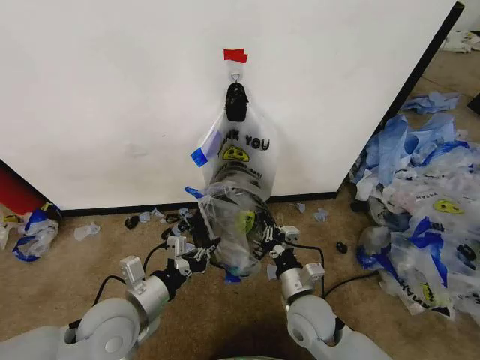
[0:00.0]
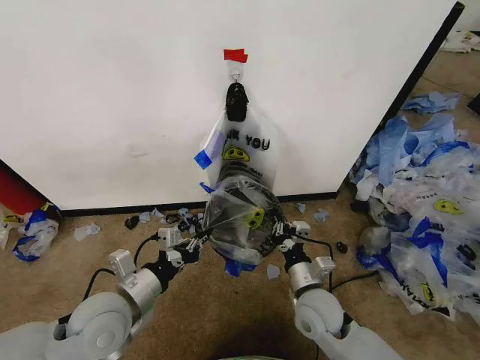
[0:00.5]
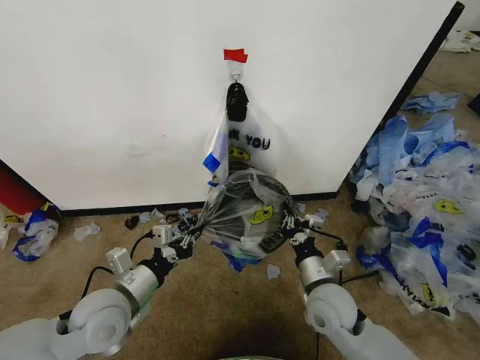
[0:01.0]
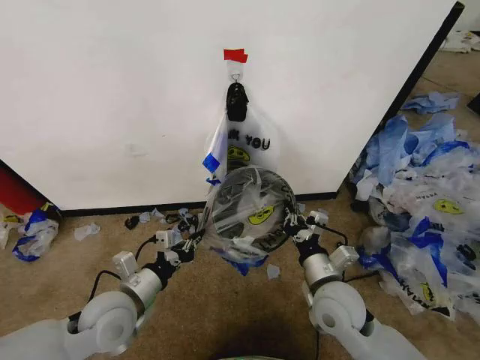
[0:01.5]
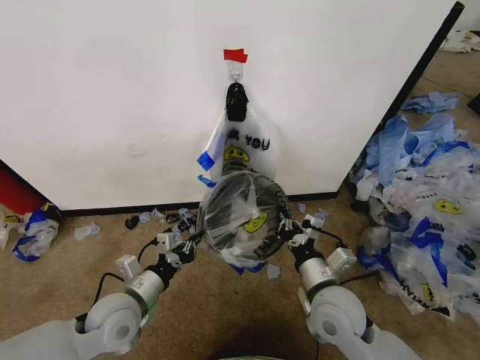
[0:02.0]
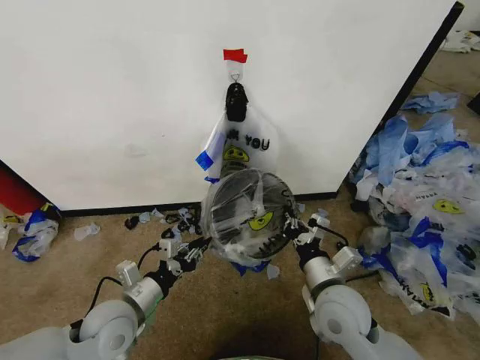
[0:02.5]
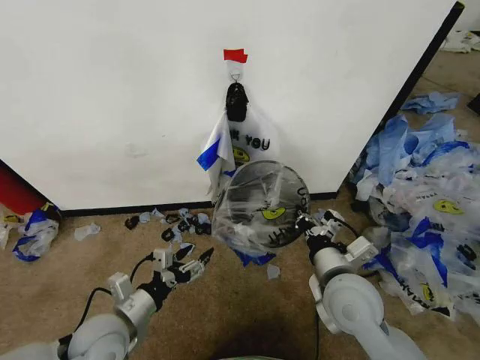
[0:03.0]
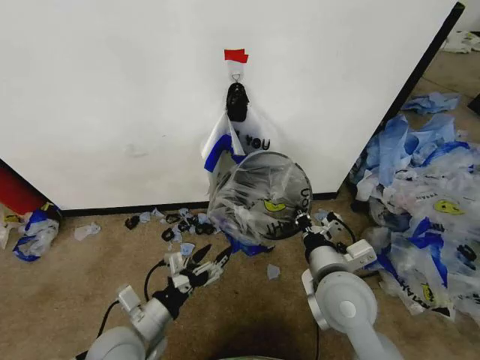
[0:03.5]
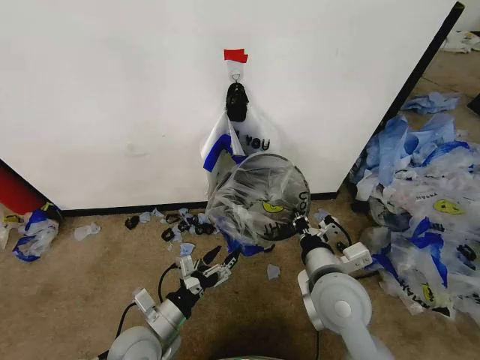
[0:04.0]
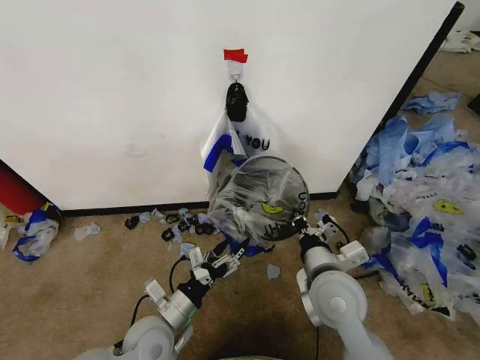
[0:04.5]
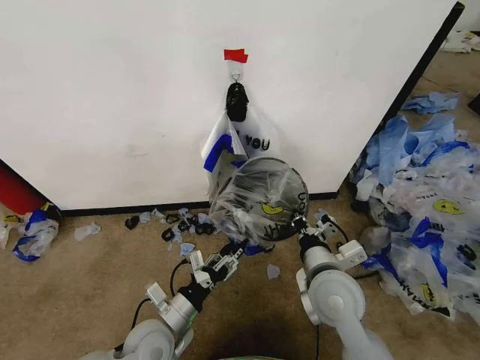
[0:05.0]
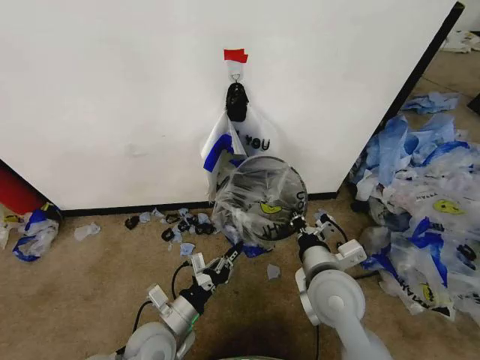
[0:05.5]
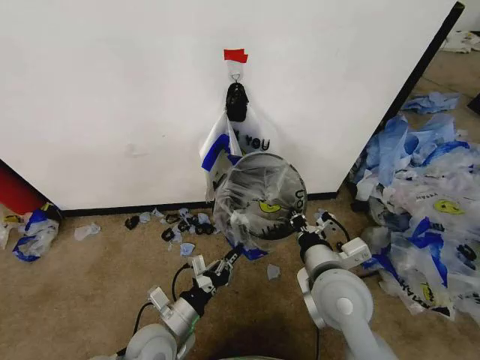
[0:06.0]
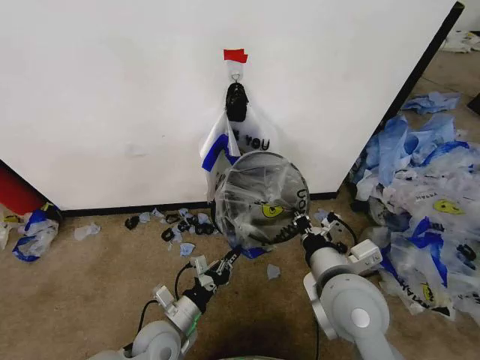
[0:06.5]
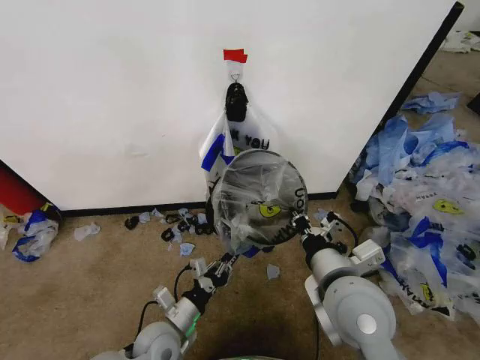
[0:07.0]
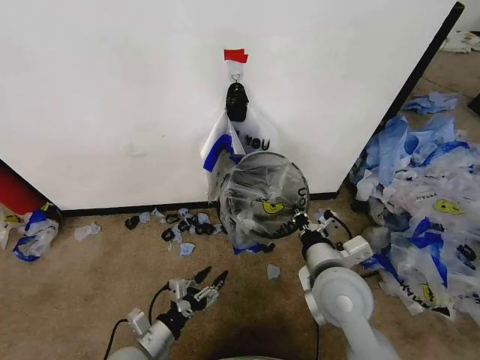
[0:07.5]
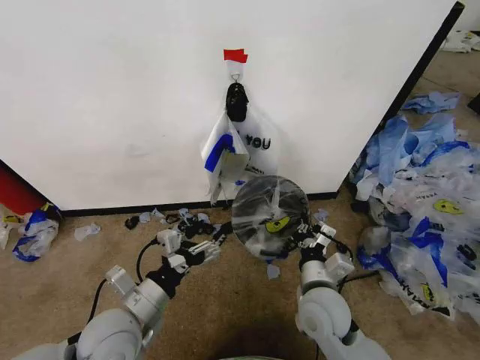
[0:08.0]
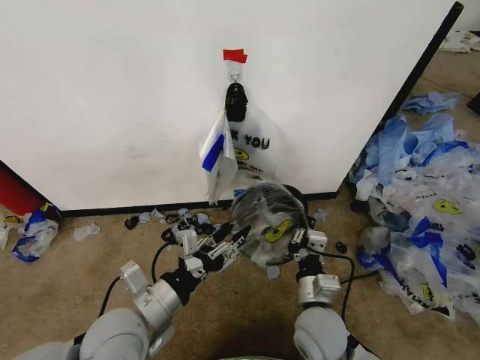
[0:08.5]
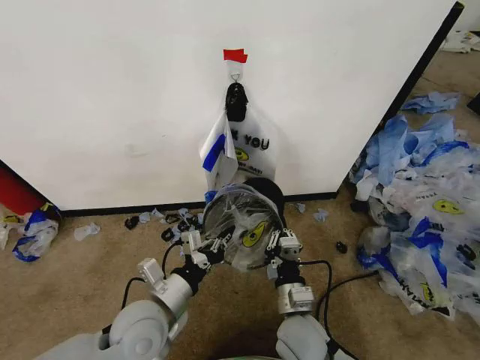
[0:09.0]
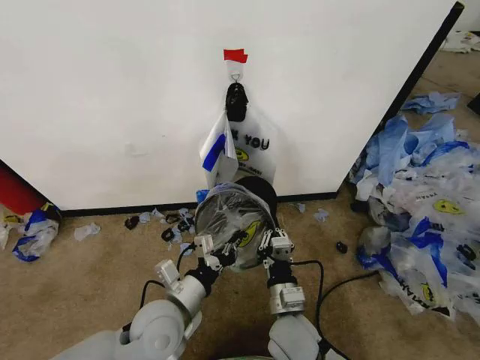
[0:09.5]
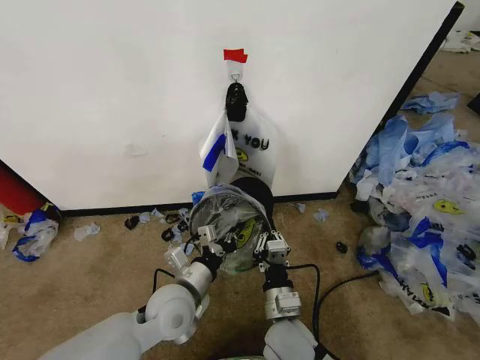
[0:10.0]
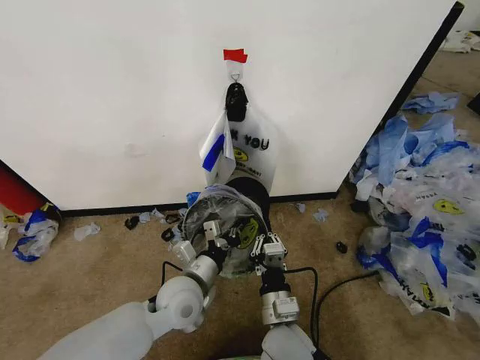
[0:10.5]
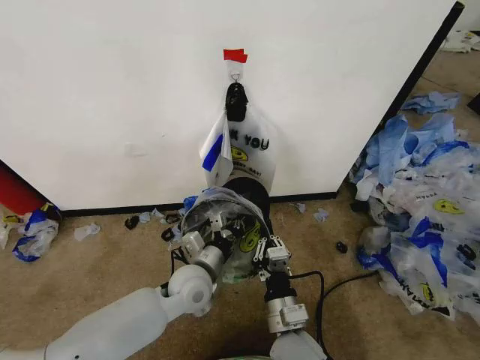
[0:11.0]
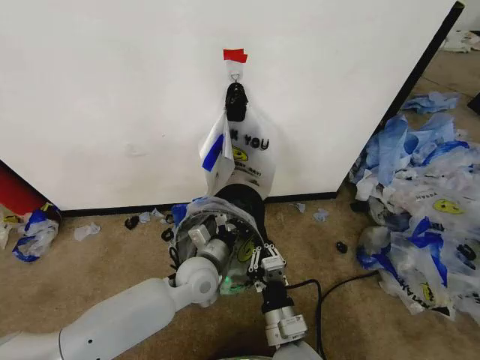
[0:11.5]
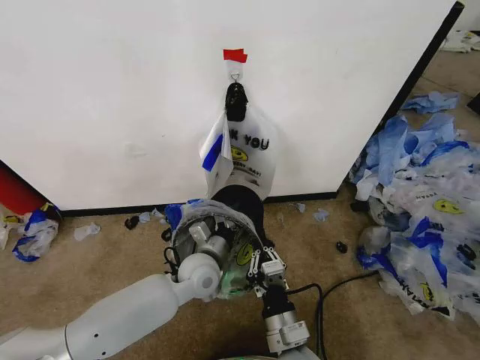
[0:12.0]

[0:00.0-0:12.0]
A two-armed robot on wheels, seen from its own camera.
Task of the whole recording: Pick up the garbage bag from the wall and place it over the trash bin.
0:00.0 to 0:02.0: The left gripper ends up about 5 cm from where it was. Meanwhile the right gripper shifts about 5 cm upward.
0:02.0 to 0:04.0: The right gripper goes approximately 5 cm upward; the left gripper changes place by approximately 10 cm, and opens.
0:04.0 to 0:06.0: The left gripper closes its fingers.
0:06.0 to 0:08.0: The left gripper travels upward by about 10 cm, and opens up; the right gripper heads downward, covering roughly 10 cm.
0:08.0 to 0:10.0: The right gripper shifts approximately 5 cm to the left; the left gripper is displaced to the right and forward by roughly 10 cm, and closes its fingers.
0:10.0 to 0:12.0: The right gripper shifts approximately 5 cm backward. The left gripper is displaced forward by some 10 cm.

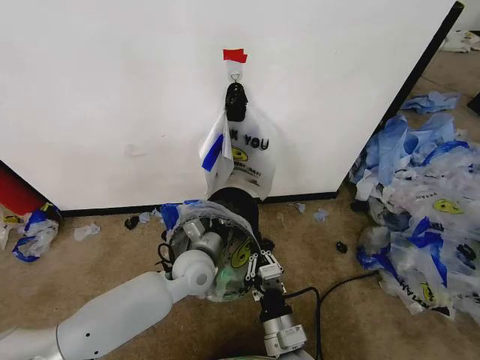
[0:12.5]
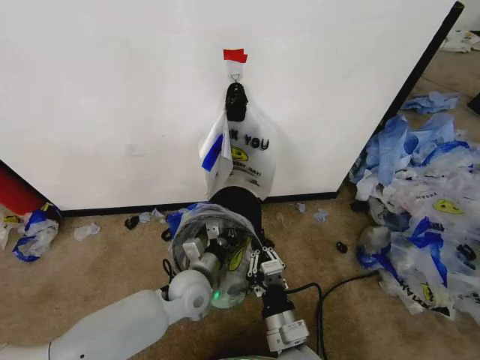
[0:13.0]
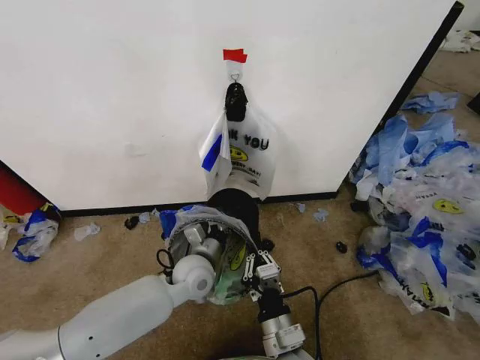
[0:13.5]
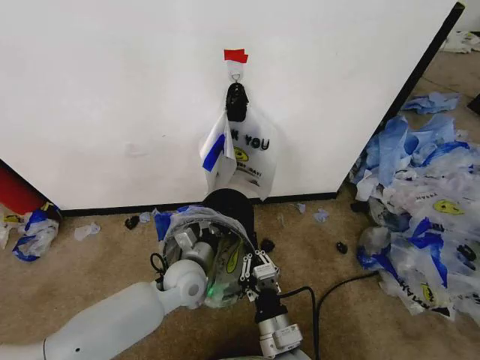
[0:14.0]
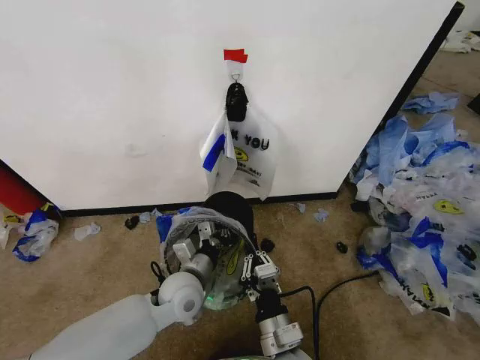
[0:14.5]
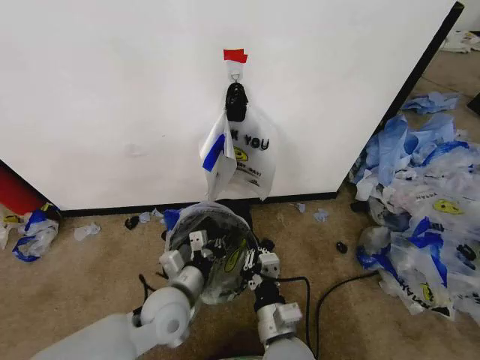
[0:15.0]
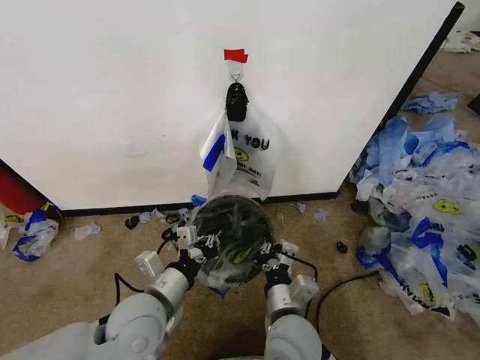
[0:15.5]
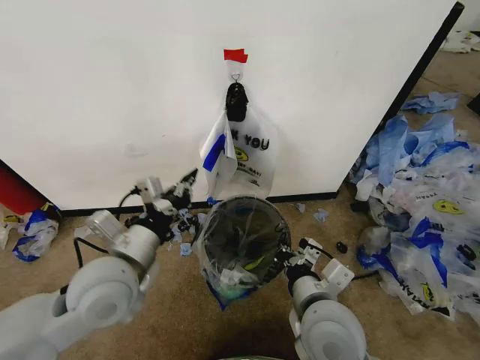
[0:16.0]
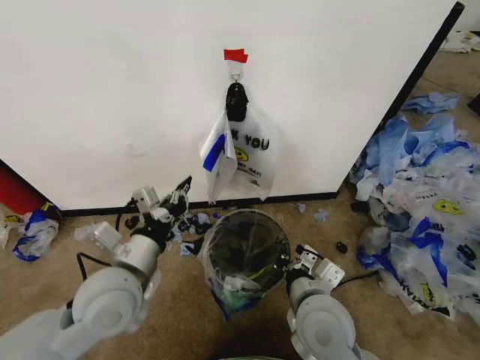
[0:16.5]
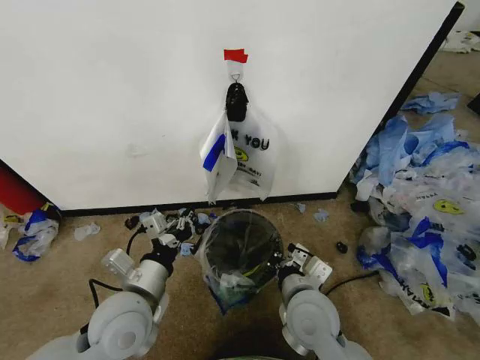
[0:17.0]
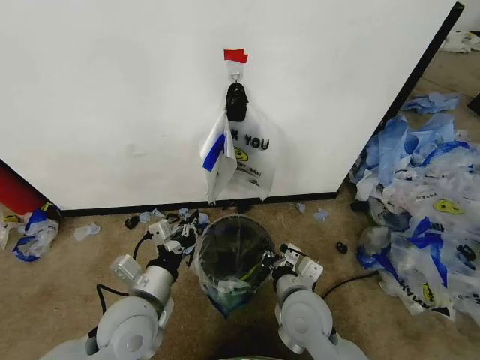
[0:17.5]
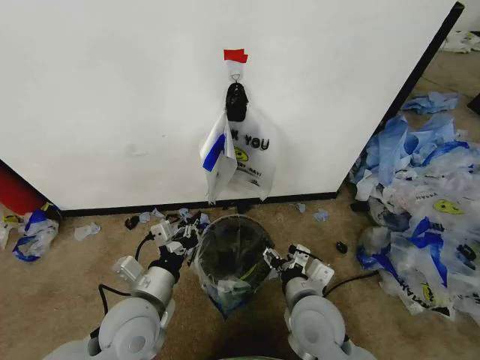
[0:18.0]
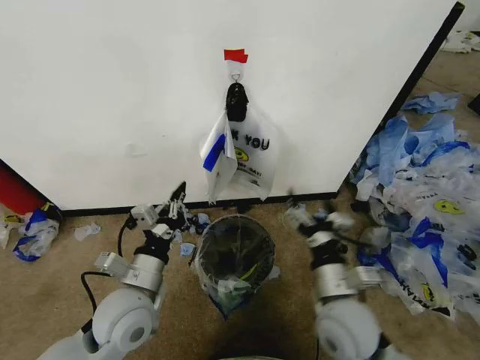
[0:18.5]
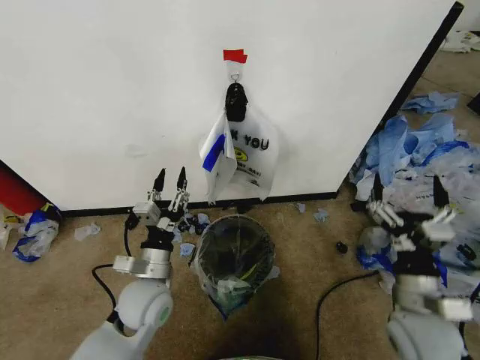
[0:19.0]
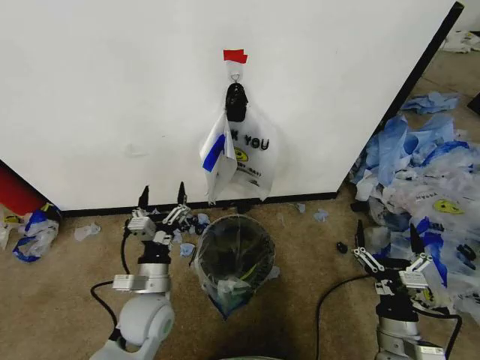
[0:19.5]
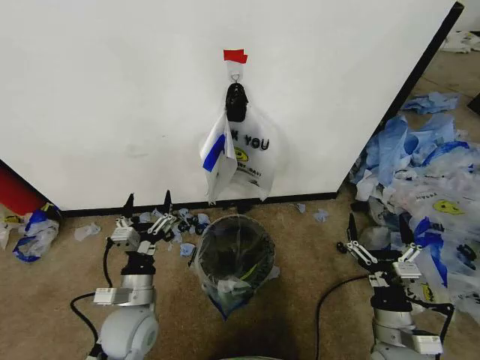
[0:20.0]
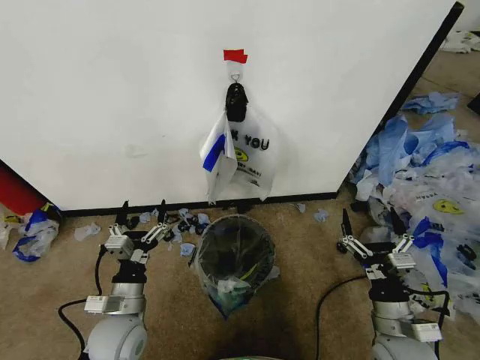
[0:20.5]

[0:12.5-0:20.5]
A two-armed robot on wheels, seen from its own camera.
Task of the whole recording: Pick up the garbage bag from the wall and place it over the trash bin.
0:12.5 to 0:14.5: The left gripper ends up approximately 5 cm from where it was.
0:14.5 to 0:16.5: The right gripper shifts about 10 cm upward, forward and to the right, while the left gripper shifts roughly 15 cm upward and to the left.
0:16.5 to 0:18.5: The left gripper heads downward, covering roughly 5 cm. Meanwhile the right gripper goes about 5 cm to the right, and opens its fingers.
0:18.5 to 0:20.5: The right gripper shifts some 15 cm to the right and downward, while the left gripper heads downward, covering roughly 10 cm, and opens.

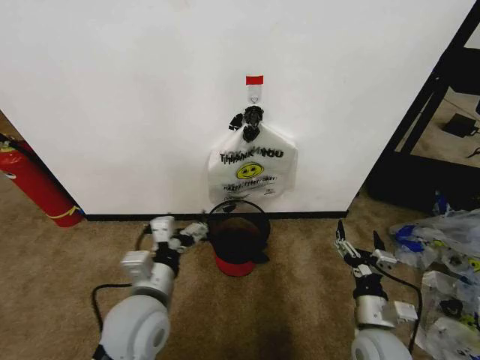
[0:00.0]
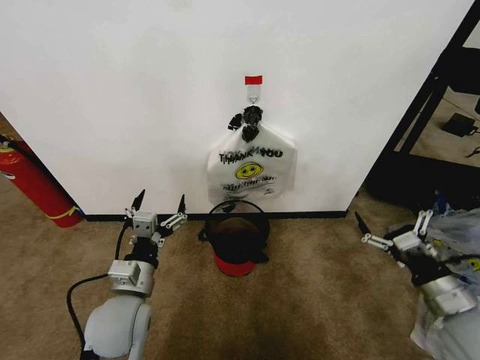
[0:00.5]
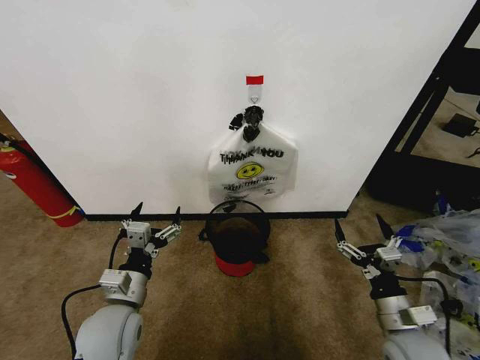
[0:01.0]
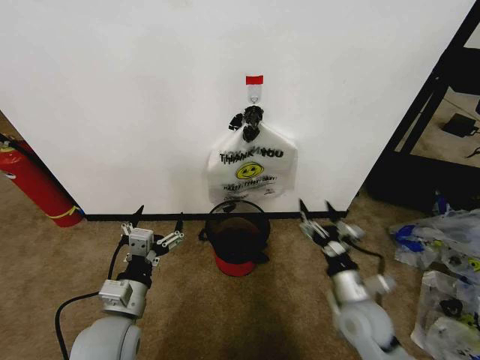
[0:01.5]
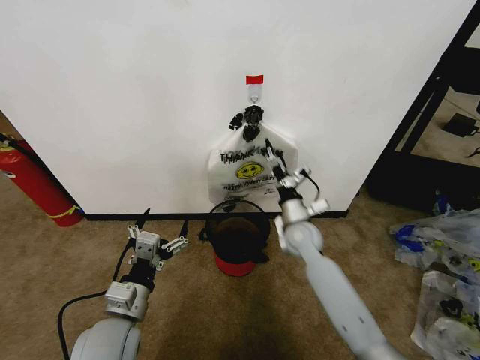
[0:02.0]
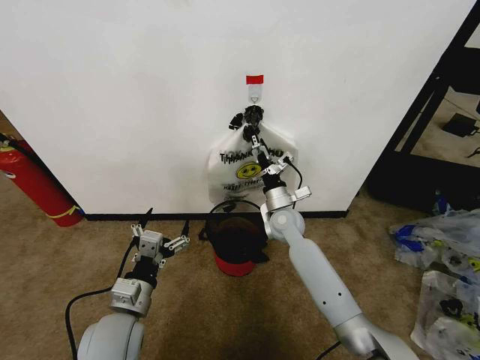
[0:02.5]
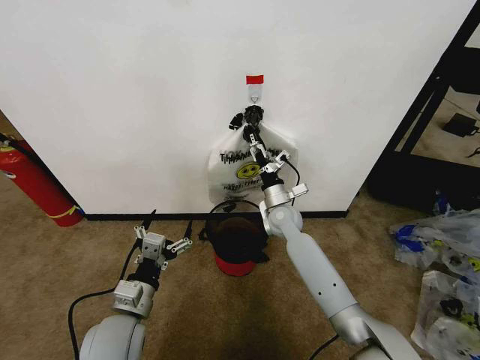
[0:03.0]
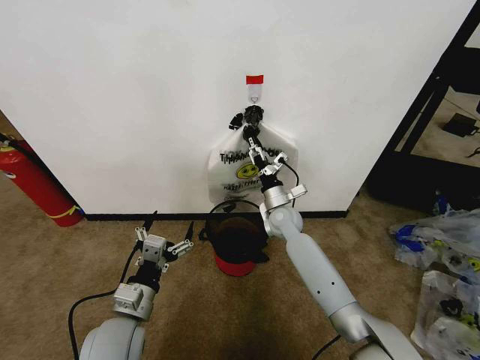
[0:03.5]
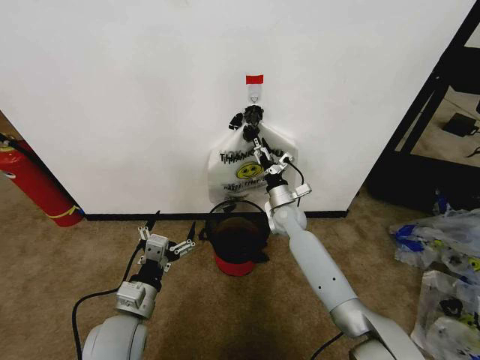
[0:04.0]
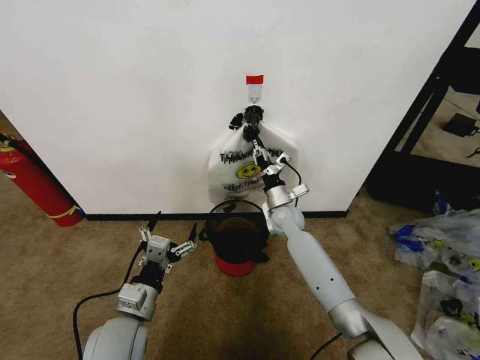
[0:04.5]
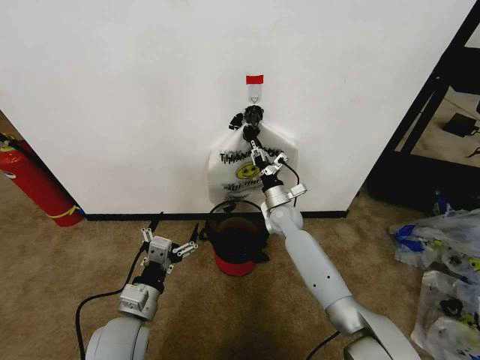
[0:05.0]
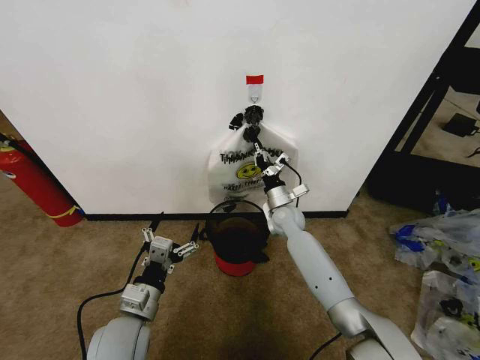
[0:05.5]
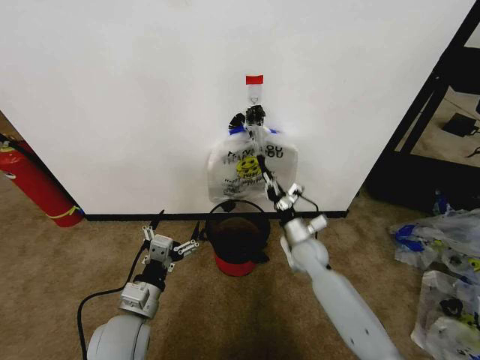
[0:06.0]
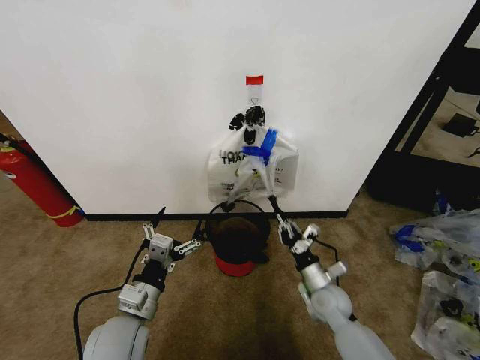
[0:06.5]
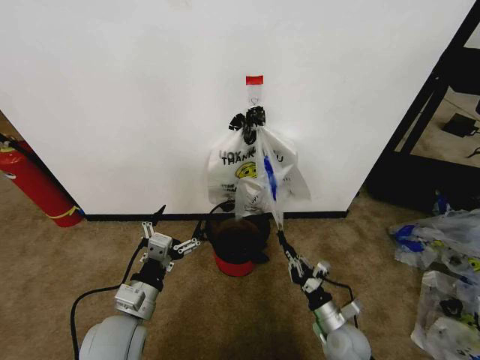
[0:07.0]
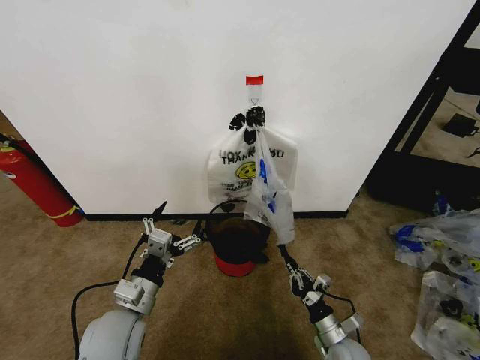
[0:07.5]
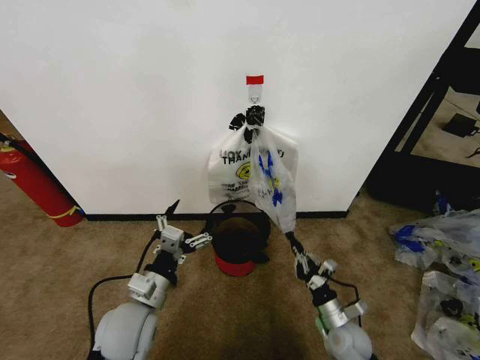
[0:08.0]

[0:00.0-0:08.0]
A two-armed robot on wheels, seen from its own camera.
Task of the whole recording: Pick up the garbage bag from the wall and place it over the trash bin.
0:02.0 to 0:04.0: The right gripper moves forward, approximately 10 cm.
0:04.0 to 0:06.0: The right gripper heads backward, covering some 10 cm, and closes its fingers.
0:06.0 to 0:08.0: The right gripper is displaced backward, downward and to the right by some 20 cm.
